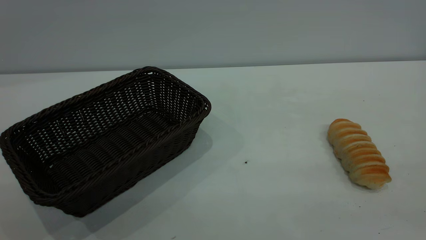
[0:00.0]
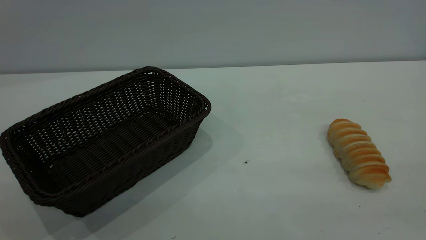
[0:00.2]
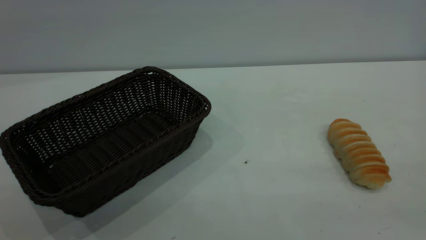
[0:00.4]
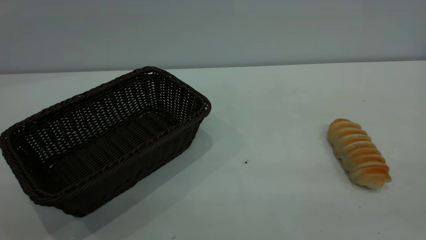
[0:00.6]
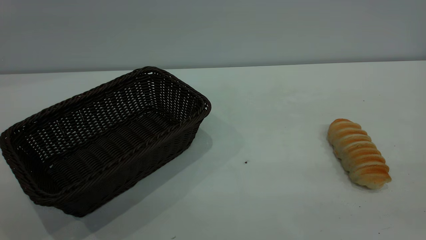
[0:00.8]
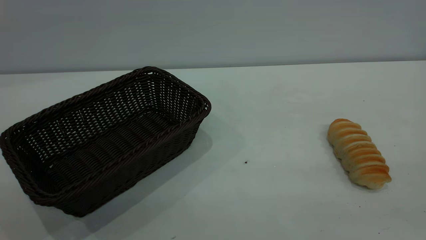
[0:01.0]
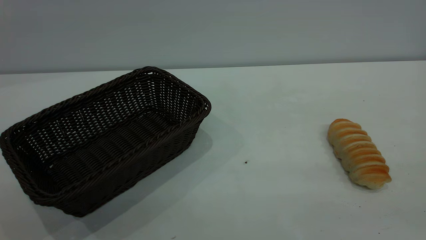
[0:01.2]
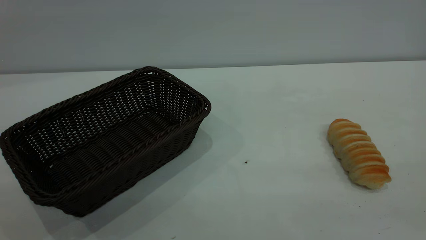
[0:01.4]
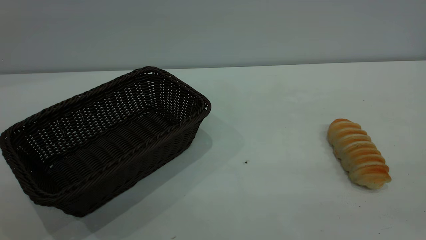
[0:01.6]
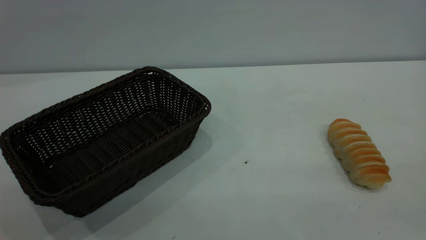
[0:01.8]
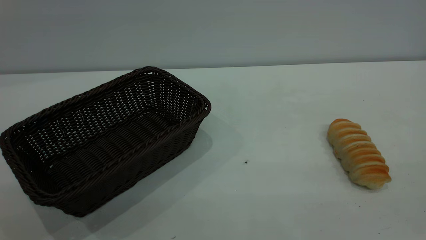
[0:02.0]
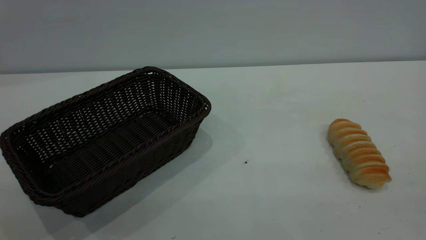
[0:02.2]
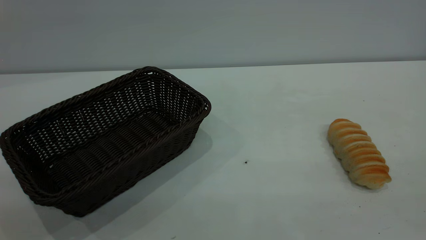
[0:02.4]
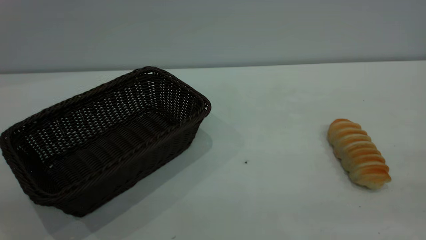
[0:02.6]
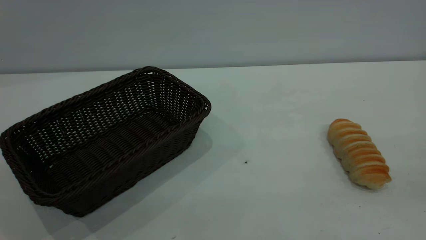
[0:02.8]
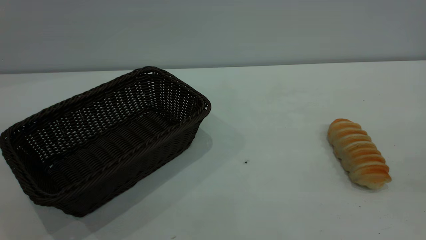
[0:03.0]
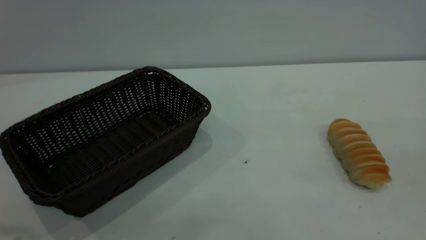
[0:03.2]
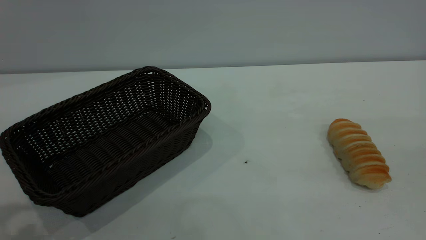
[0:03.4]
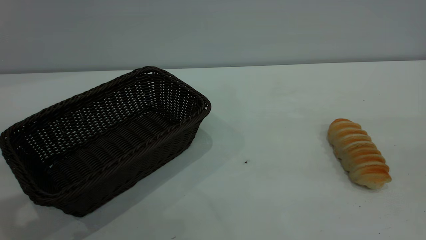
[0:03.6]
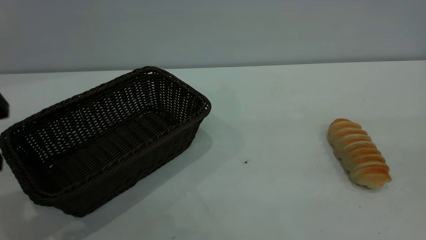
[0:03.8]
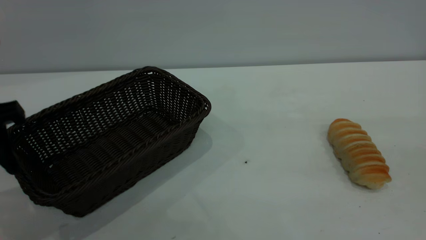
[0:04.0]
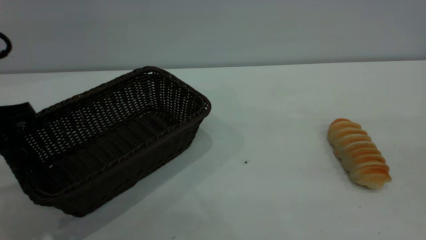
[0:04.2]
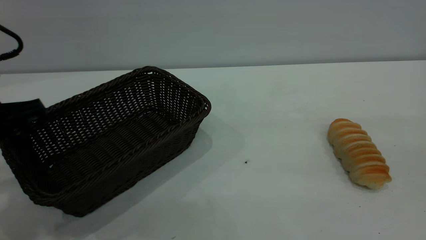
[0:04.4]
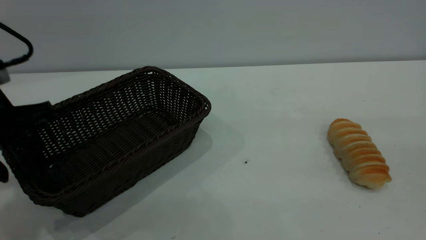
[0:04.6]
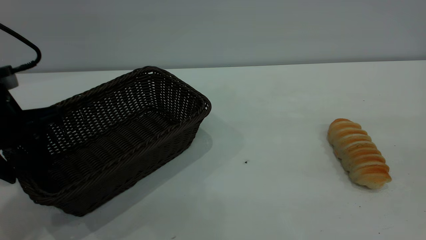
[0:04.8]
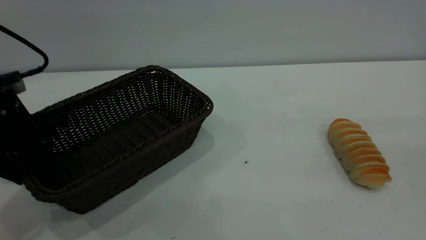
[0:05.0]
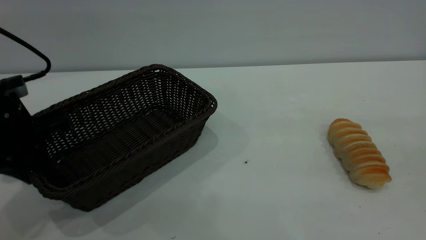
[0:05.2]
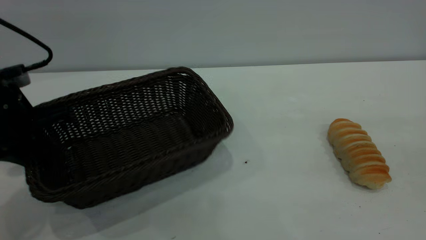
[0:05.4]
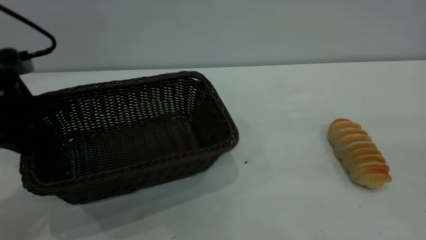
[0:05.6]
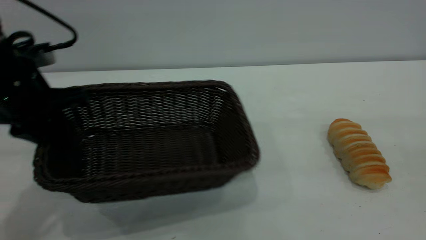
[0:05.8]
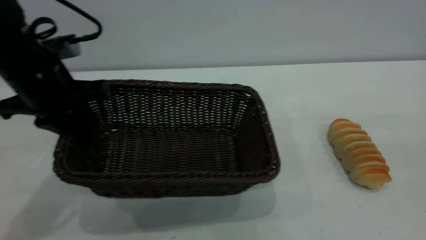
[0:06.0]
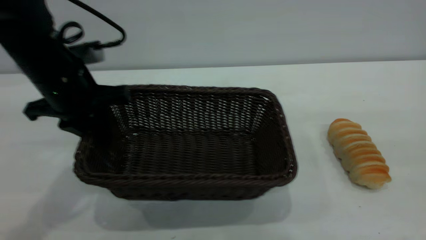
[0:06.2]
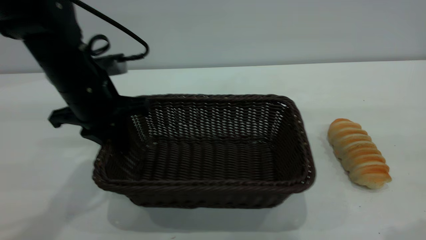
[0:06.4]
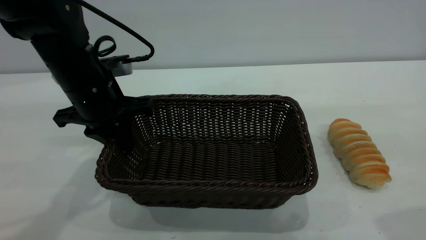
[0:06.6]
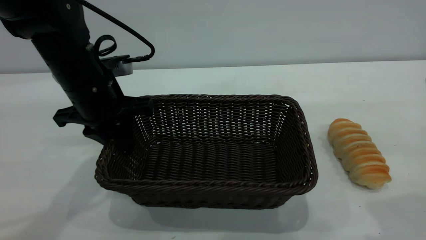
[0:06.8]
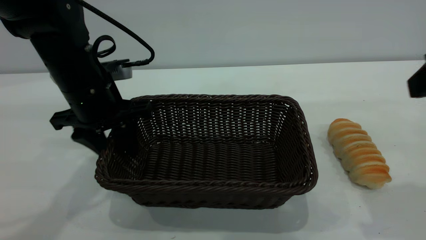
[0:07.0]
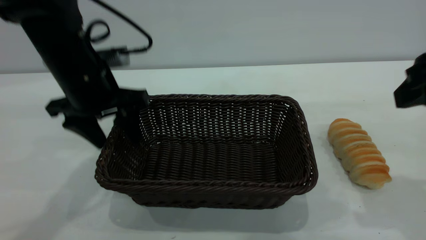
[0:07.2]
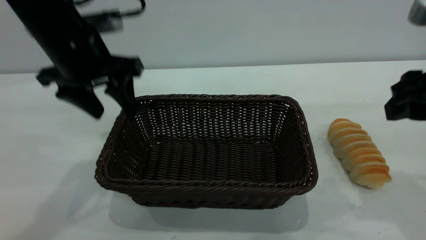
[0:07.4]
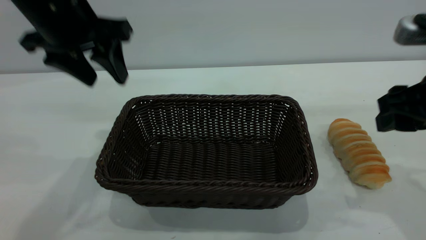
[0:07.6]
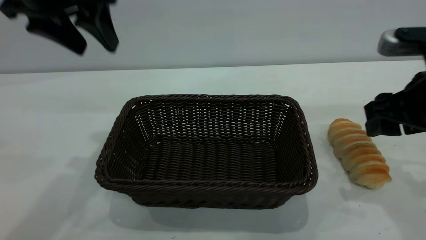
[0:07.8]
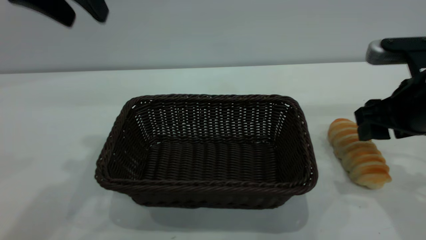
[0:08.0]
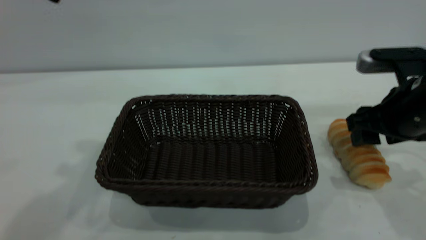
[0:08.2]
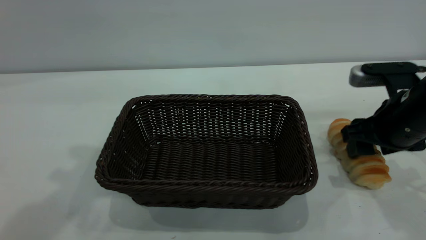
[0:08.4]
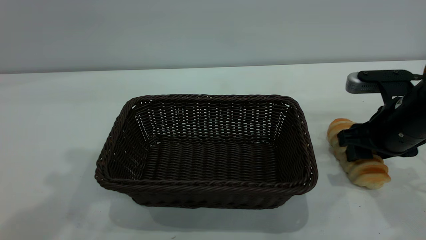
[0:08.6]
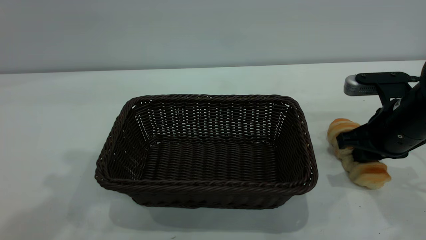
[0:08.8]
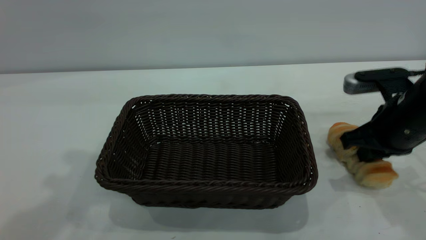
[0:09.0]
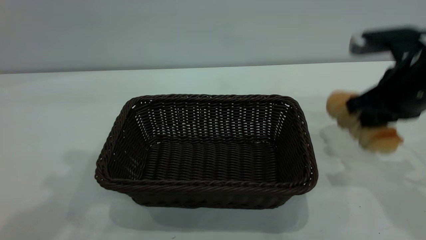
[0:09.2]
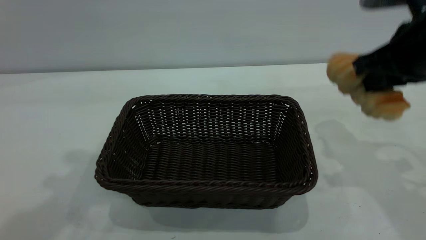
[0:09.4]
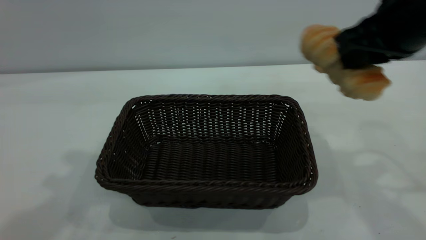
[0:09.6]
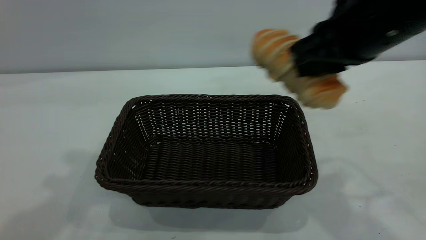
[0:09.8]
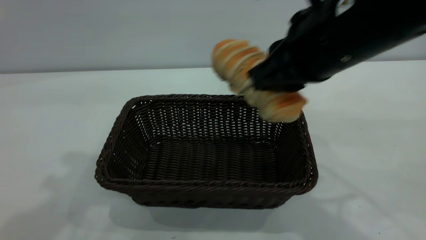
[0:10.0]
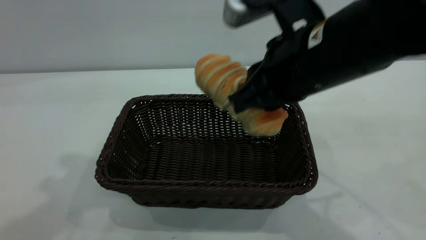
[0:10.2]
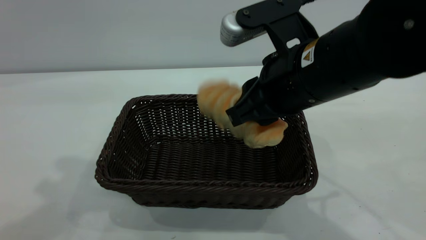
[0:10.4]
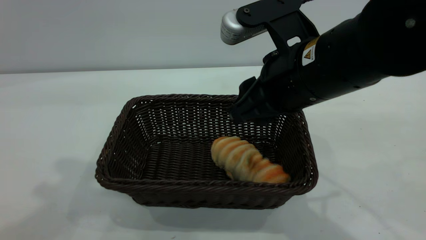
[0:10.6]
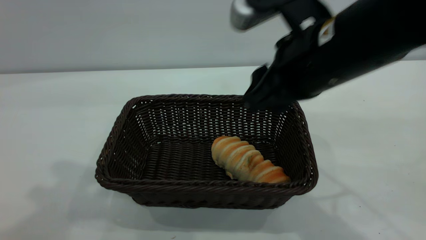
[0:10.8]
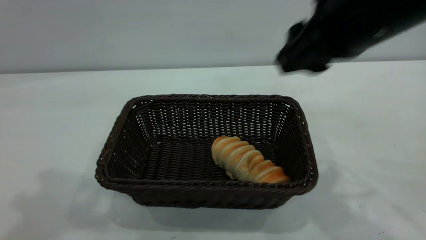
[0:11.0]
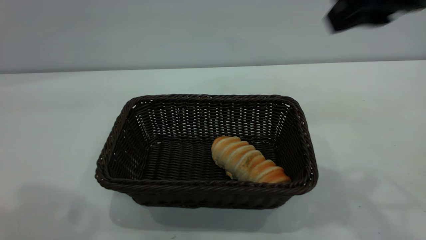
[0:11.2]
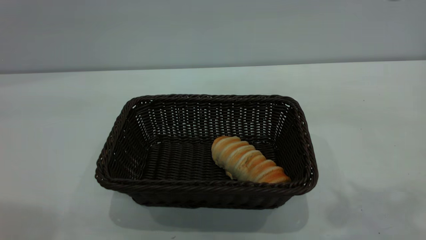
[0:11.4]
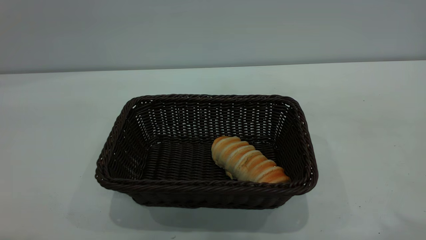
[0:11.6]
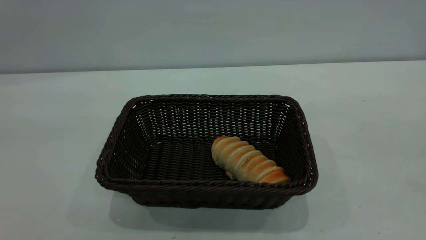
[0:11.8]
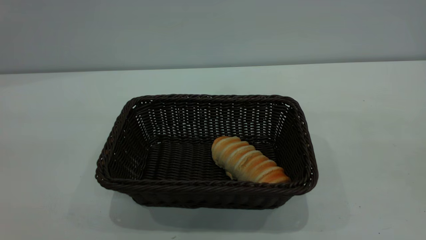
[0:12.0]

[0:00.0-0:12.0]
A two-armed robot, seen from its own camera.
Task of the whole recording: One hand grasps the black basket and places it in the middle of the table, while the other hand picks up the long bread and puts it into the black basket.
Step, 0:00.0 to 0:07.4: Move the basket to the center of view.
Step, 0:09.4 to 0:11.0: place the bread into the basket.
0:00.0 to 0:01.6: Both grippers stay put.
0:03.0 to 0:04.4: The left gripper travels downward and forward by some 20 cm.
0:04.4 to 0:06.0: The left gripper travels forward and to the right by roughly 10 cm, and closes up.
0:06.0 to 0:07.6: The left gripper is displaced upward by about 10 cm, and opens, while the right gripper travels downward and forward by about 20 cm.
0:07.6 to 0:09.0: The right gripper moves downward and forward, some 10 cm, and closes its fingers. Meanwhile the left gripper moves upward and backward, about 15 cm.
0:09.0 to 0:10.4: The right gripper travels to the left and upward by roughly 15 cm.
0:10.4 to 0:12.0: The left gripper is displaced backward by roughly 20 cm, while the right gripper shifts approximately 35 cm backward, upward and to the right.

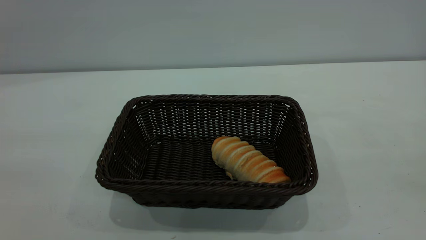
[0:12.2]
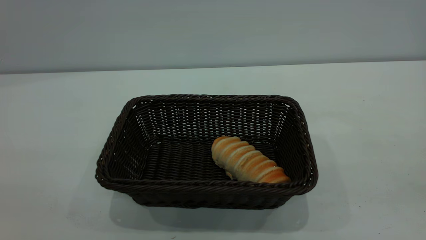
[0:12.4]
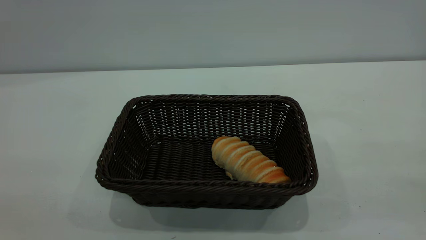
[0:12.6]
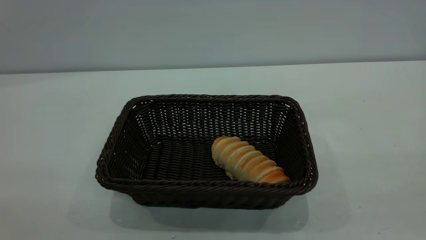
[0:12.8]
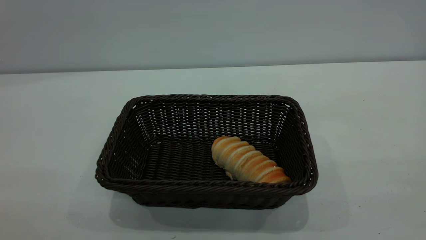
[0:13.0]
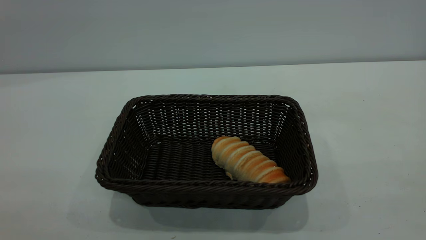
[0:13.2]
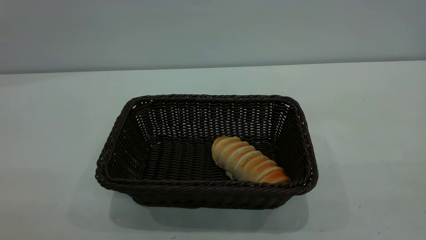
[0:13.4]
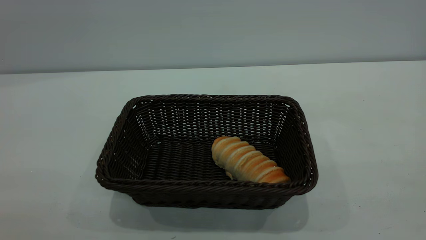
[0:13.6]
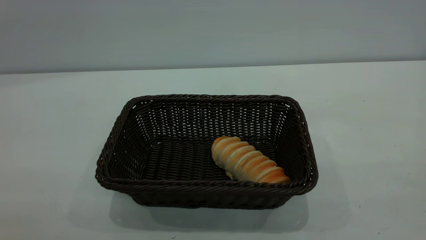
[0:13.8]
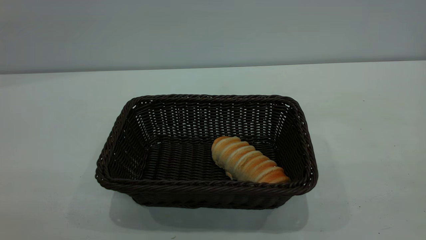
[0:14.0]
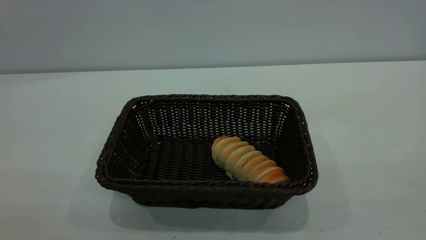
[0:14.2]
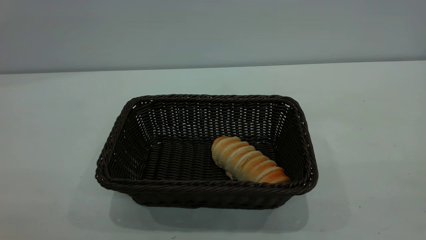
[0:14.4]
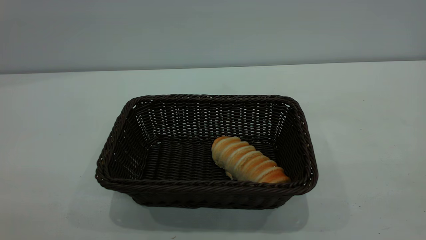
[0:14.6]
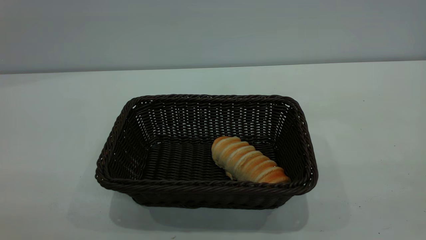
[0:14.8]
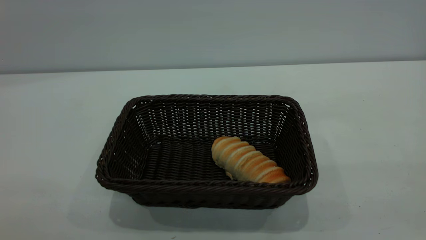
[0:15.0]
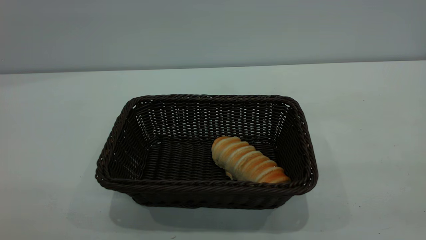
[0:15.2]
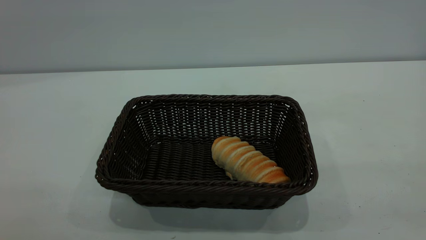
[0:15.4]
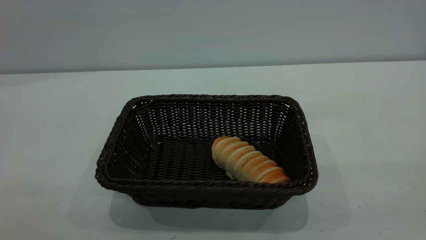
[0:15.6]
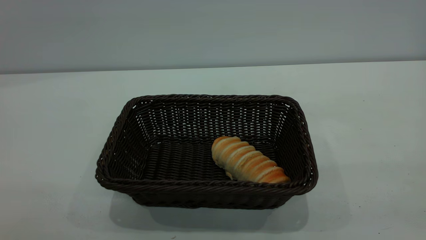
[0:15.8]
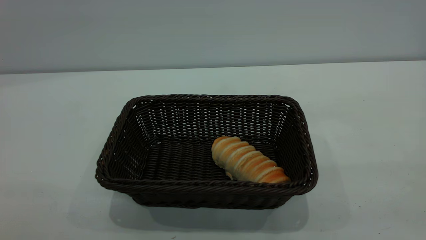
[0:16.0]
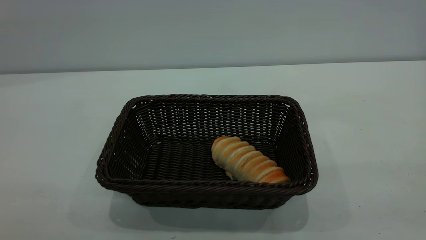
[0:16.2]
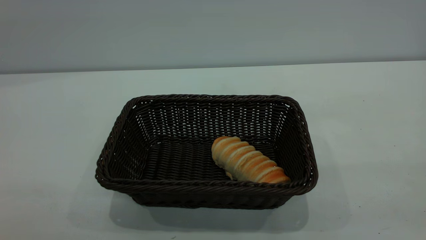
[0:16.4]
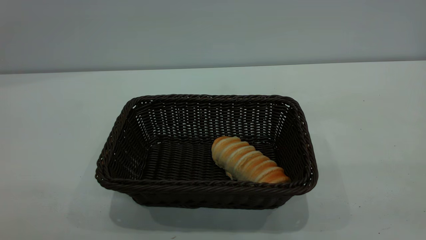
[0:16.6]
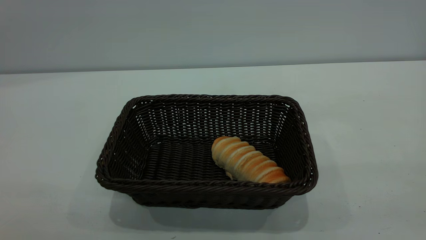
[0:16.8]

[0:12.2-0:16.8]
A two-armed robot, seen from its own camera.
Task of the whole recording: One hand grasps the black basket and places it in the middle of the table, while the other hand picks up the long bread and puts it into the black basket.
0:15.2 to 0:16.8: The two grippers keep their place.
